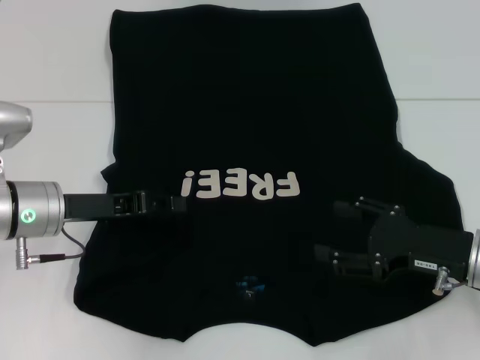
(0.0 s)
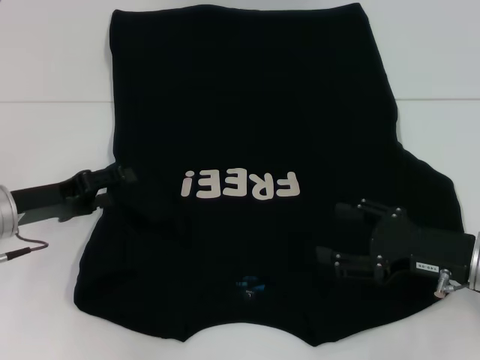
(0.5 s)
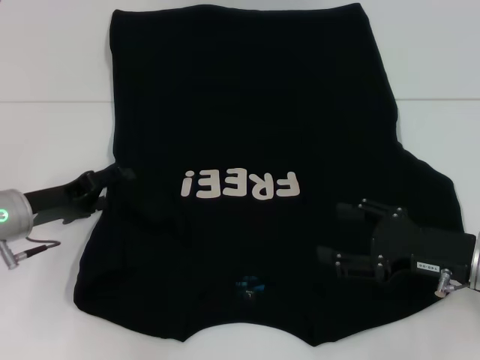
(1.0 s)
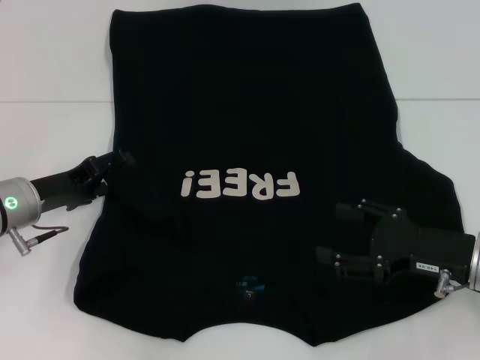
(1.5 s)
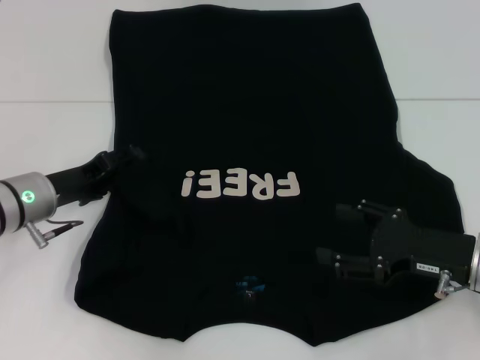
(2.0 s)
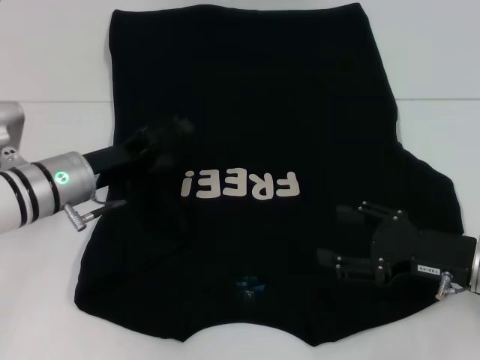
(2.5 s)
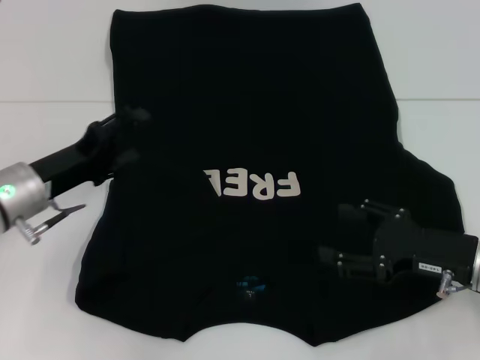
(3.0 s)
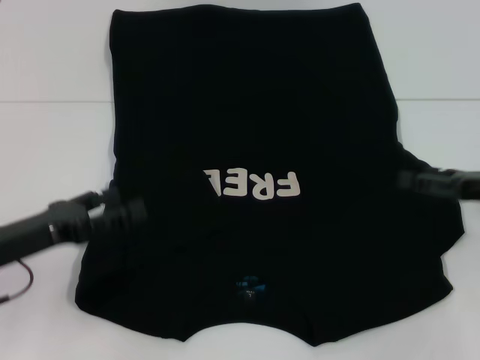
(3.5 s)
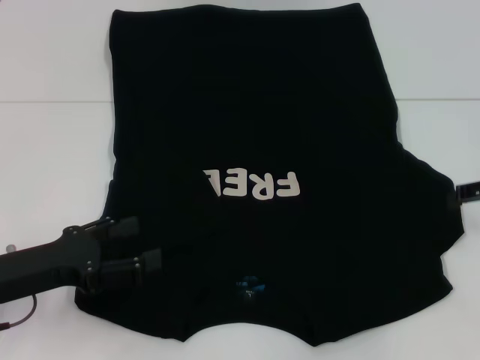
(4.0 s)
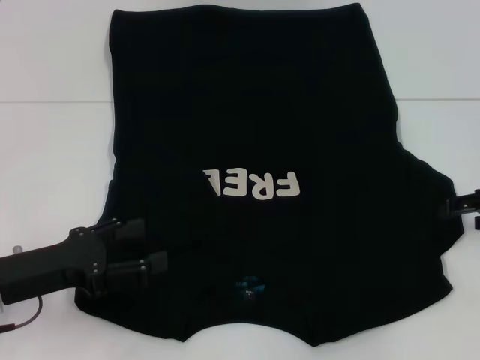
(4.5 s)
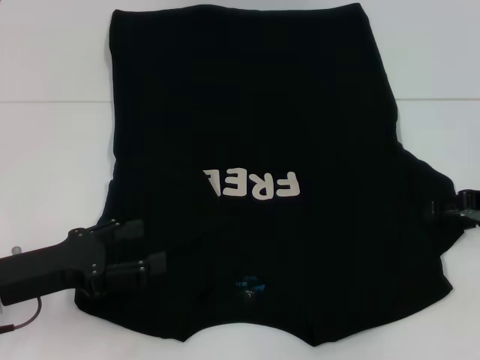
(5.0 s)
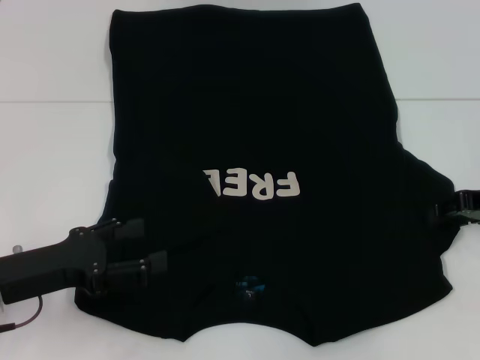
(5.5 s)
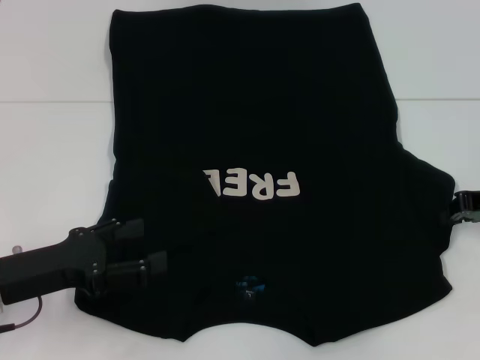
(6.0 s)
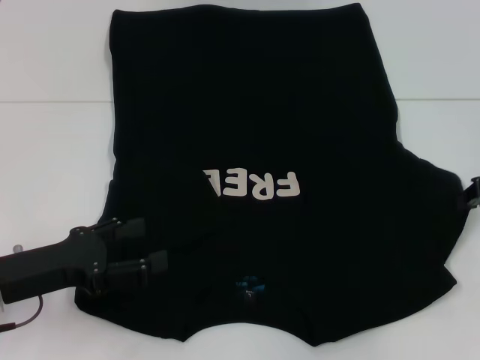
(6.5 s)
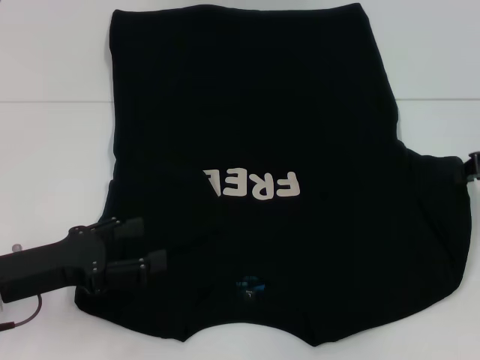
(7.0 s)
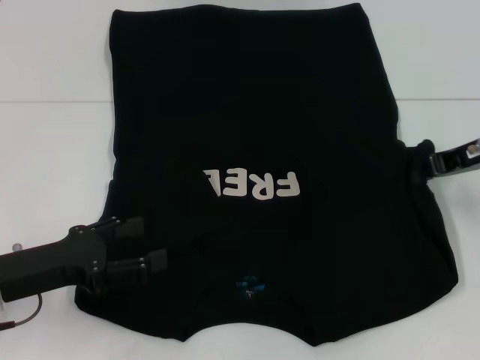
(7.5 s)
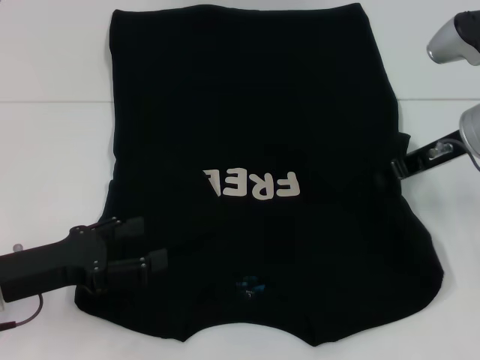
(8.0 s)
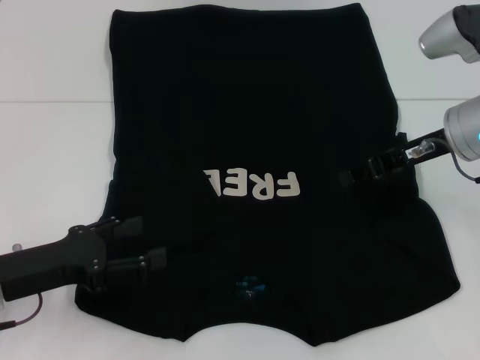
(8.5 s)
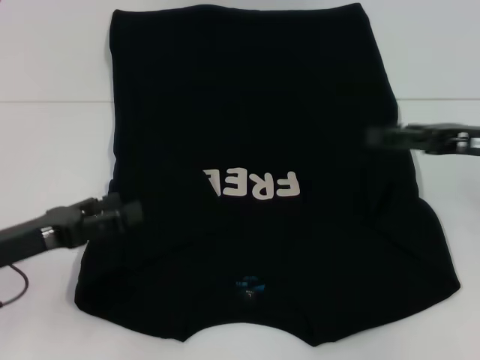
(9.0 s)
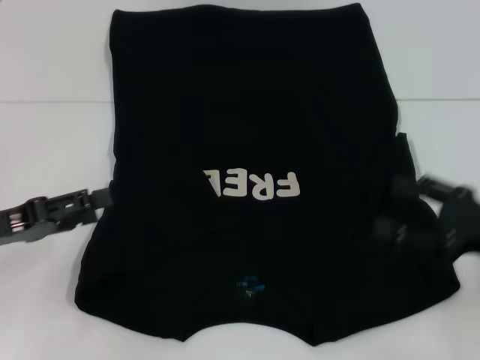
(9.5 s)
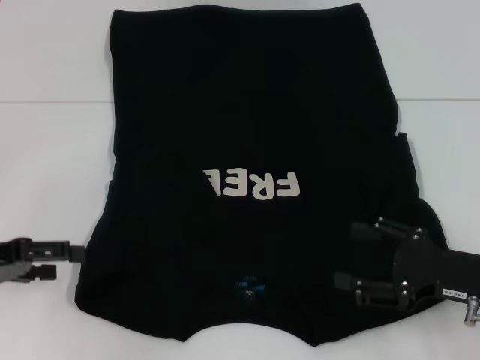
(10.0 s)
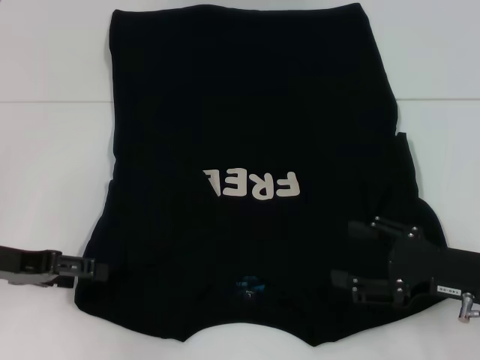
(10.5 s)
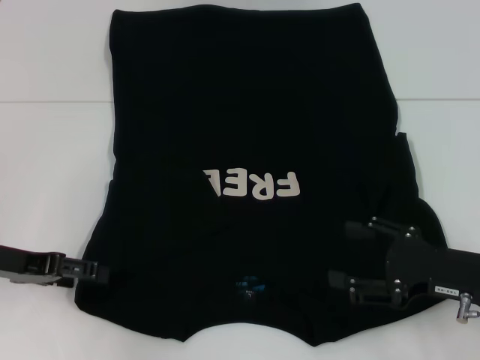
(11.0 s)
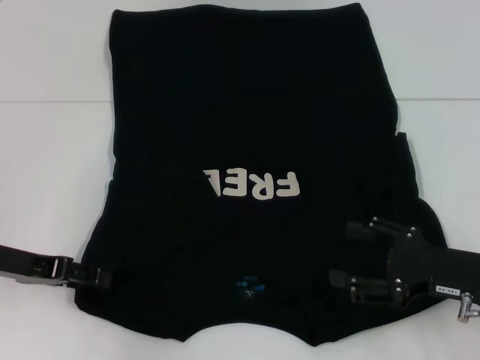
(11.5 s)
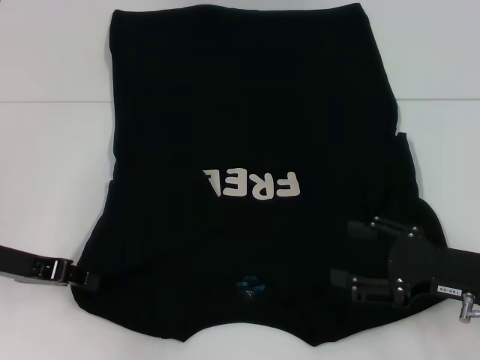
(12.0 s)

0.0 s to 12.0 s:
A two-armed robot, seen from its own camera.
Step, 0.0 to 2.5 s: Fold the bottom left sleeve with your left hand.
Step, 3.0 to 8.5 s: Fold the bottom right sleeve with your right hand.
0.0 to 2.0 s: The left gripper opens up.
2.0 to 4.0 s: The left gripper travels backward by some 10 cm. Meanwhile the right gripper travels to the right, upward and forward by about 15 cm.
4.0 to 6.0 s: The right gripper closes its fingers.
6.0 to 8.0 s: The right gripper goes roughly 10 cm to the left.
8.0 to 10.0 s: The right gripper moves backward and downward, approximately 20 cm, and opens up, while the left gripper is displaced to the left by about 5 cm.
10.0 to 12.0 s: The left gripper moves some 5 cm, and closes its fingers.

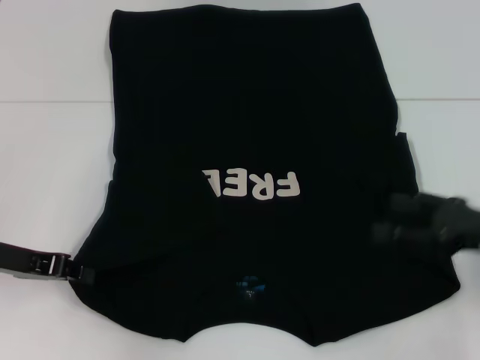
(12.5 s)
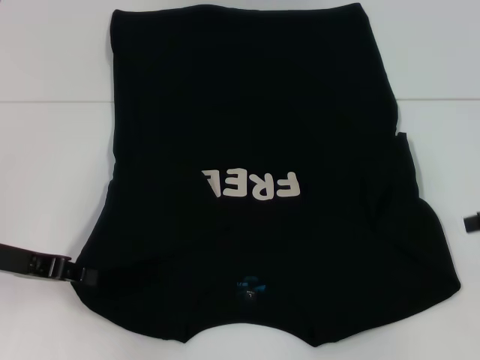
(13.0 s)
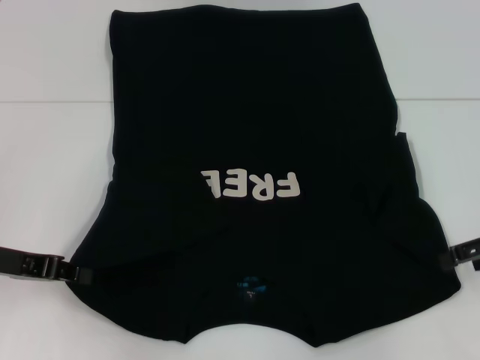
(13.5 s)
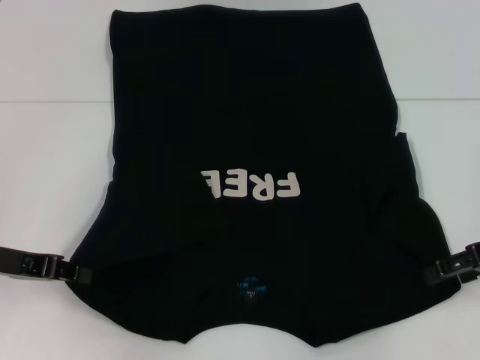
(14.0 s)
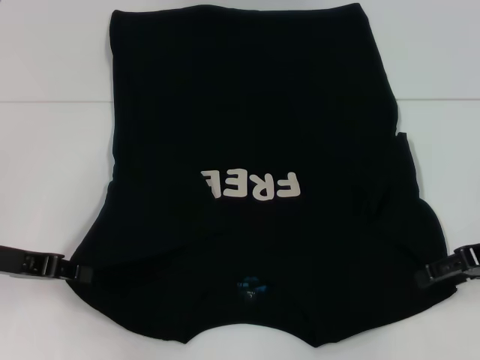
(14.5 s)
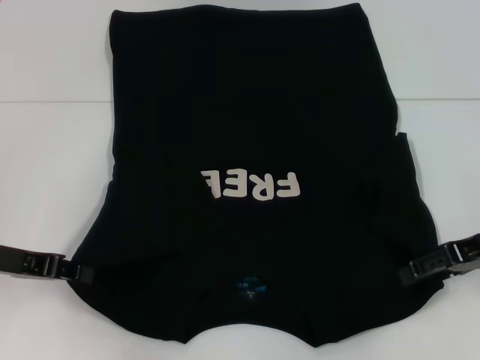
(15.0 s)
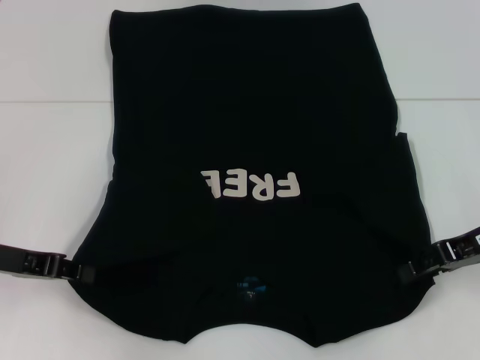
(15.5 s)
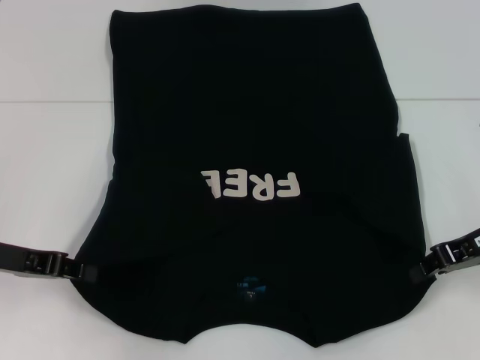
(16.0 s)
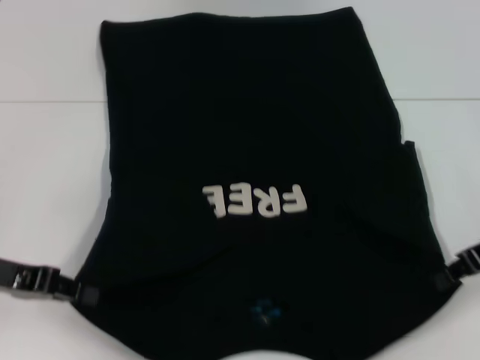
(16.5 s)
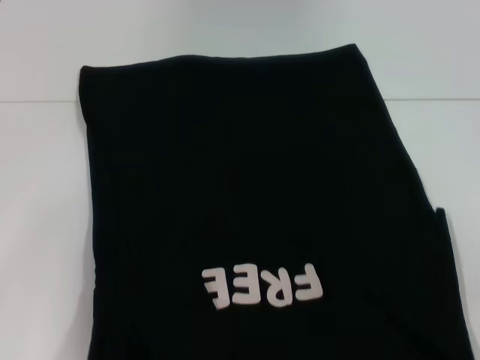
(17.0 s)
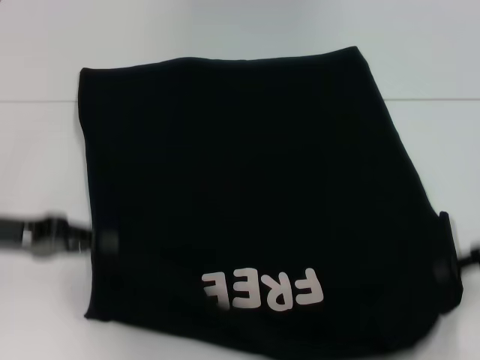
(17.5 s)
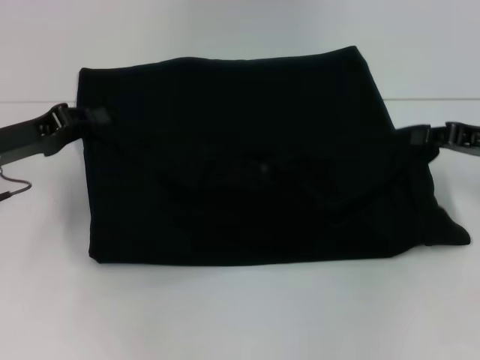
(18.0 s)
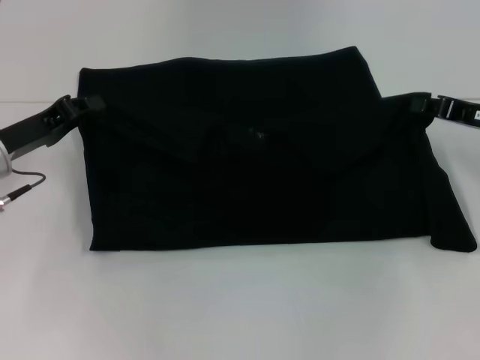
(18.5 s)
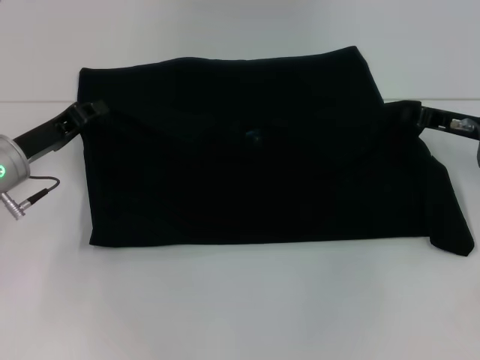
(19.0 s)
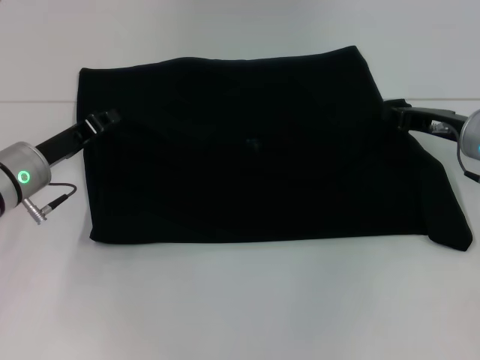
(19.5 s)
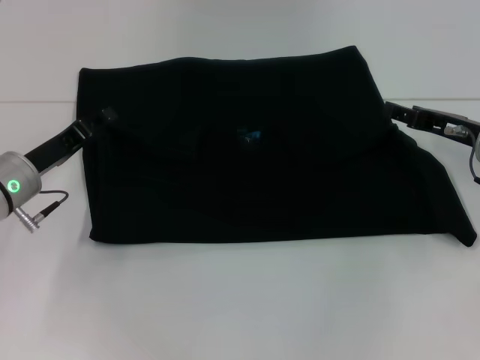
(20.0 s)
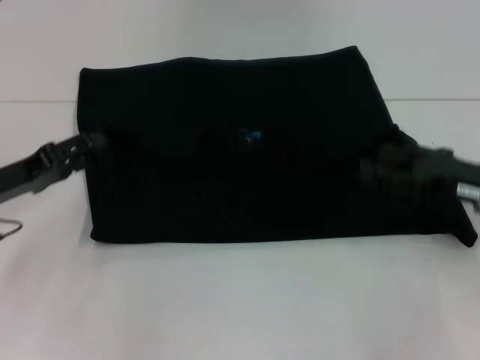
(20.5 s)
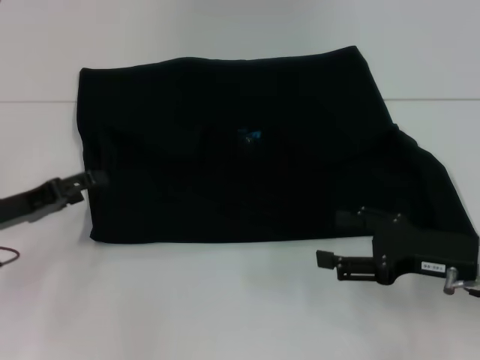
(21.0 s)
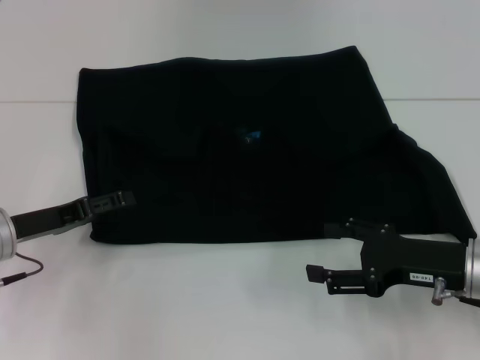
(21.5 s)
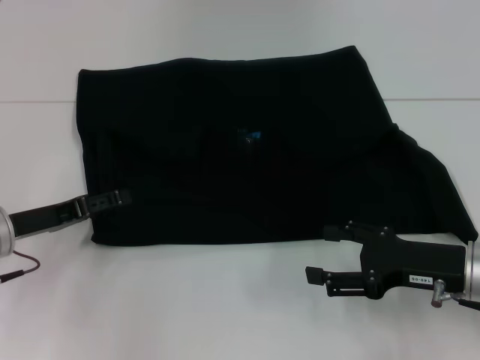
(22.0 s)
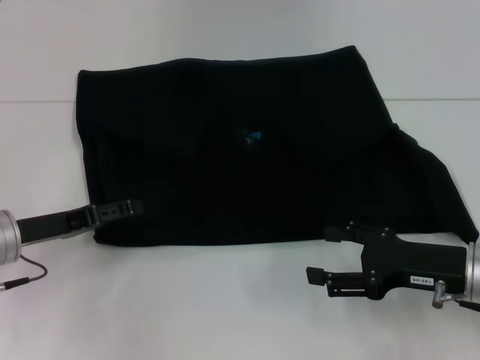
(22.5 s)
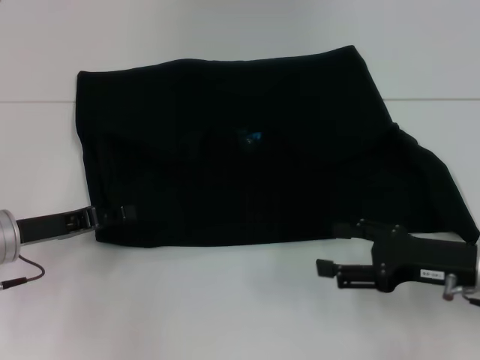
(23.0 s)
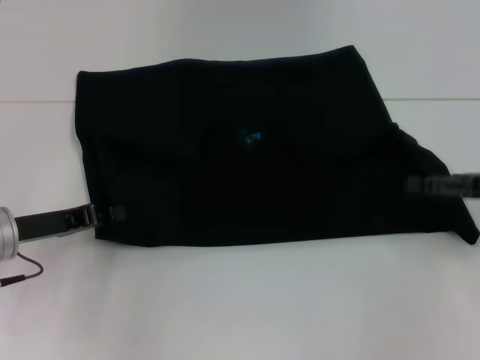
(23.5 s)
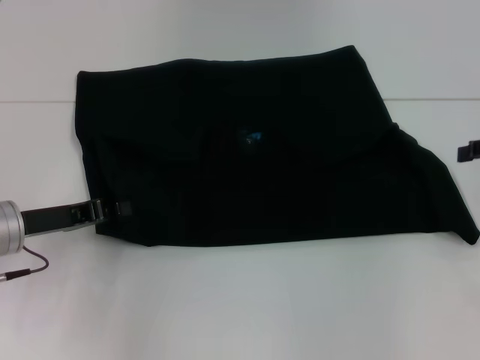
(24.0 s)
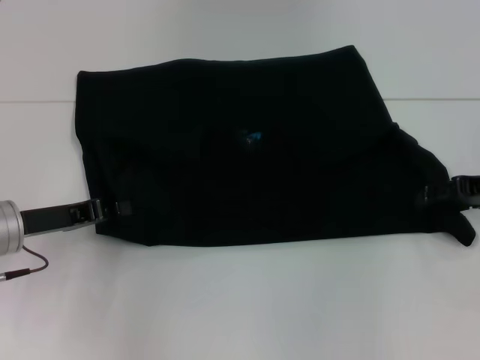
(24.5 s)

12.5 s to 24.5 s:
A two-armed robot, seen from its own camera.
Step, 13.5 to 16.0 s: Grab the bottom right corner with your right hand.
Step, 16.5 to 20.0 s: Fold the clothes with your left hand.
Step, 16.5 to 20.0 s: Fold the clothes with your right hand.
12.5 to 14.5 s: The right gripper is displaced forward by roughly 5 cm.
14.5 to 16.5 s: The right gripper closes up.
16.5 to 18.5 s: The two grippers go about 5 cm forward.
18.5 to 20.5 s: The left gripper ends up about 5 cm from where it was, and opens. Meanwhile the right gripper travels backward by roughly 5 cm, and opens its fingers.
20.5 to 22.5 s: The right gripper moves about 5 cm.
22.5 to 24.5 s: The left gripper closes its fingers, while the right gripper heads forward, to the right and upward, covering about 15 cm.

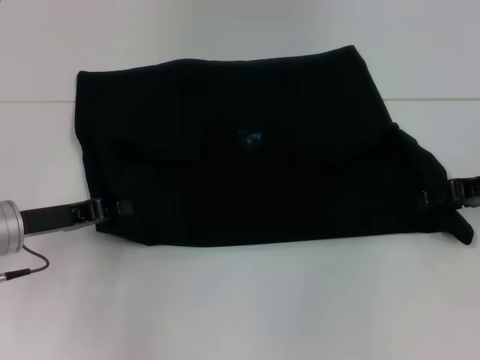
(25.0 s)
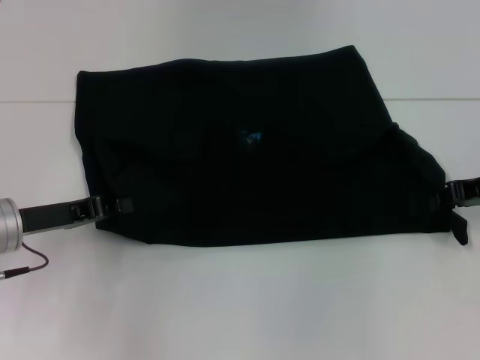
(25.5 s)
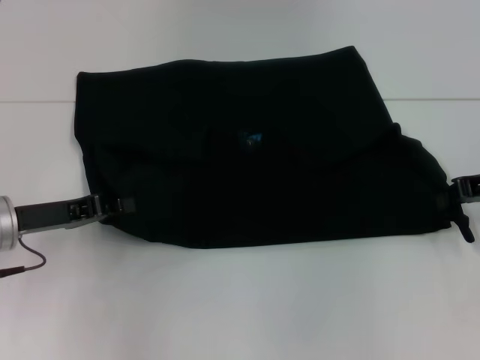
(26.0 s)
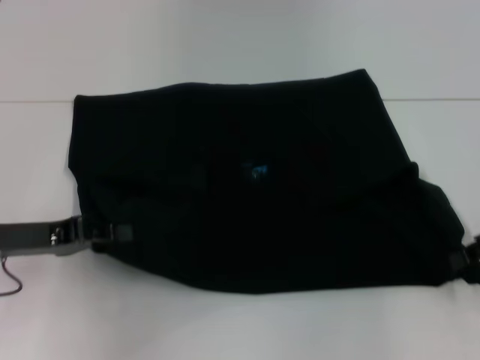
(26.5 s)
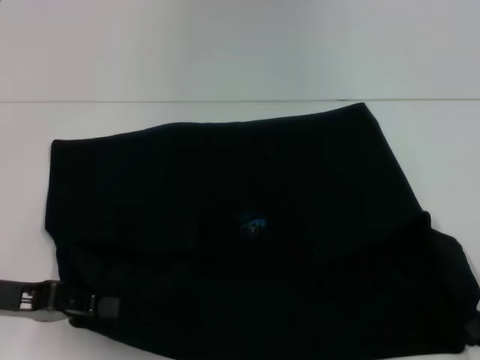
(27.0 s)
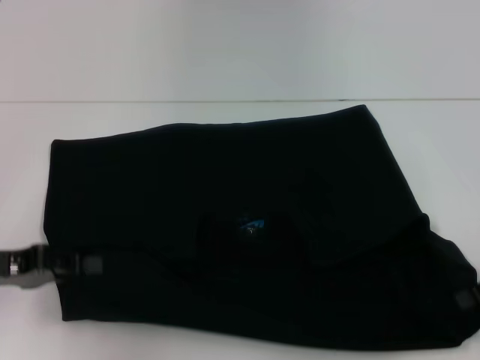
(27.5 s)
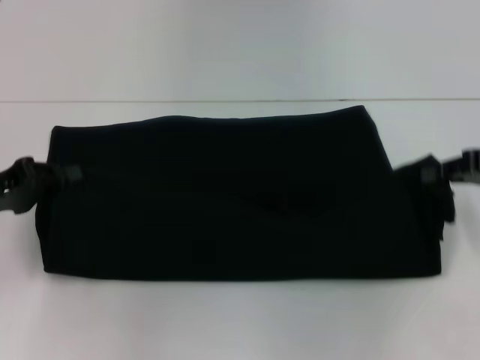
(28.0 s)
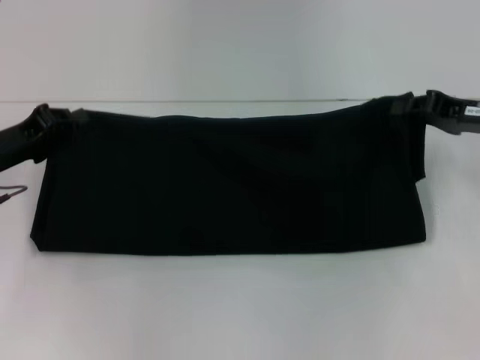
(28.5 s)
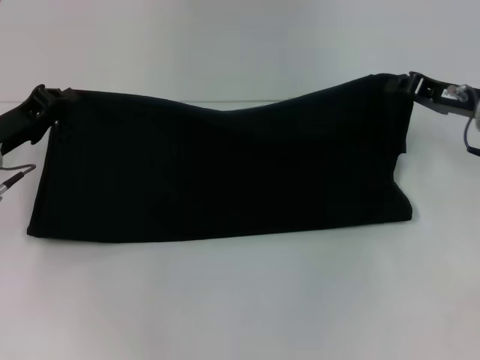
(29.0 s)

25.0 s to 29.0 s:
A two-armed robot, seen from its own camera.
Step, 25.0 to 27.0 s: Pull the clothes with your left hand.
Step, 25.0 to 27.0 s: Pull the clothes with your right hand.
25.0 to 27.0 s: Both grippers travel together backward, about 5 cm. The right gripper closes.
27.0 to 29.0 s: The left gripper heads forward, covering some 10 cm, while the right gripper heads forward and to the left, covering about 10 cm.
